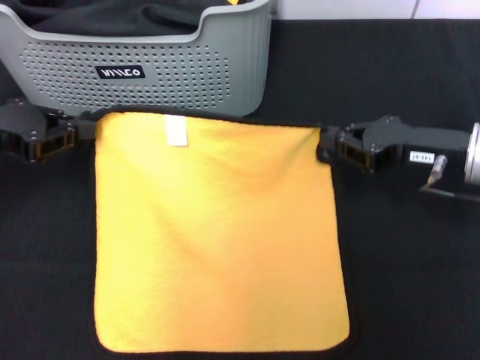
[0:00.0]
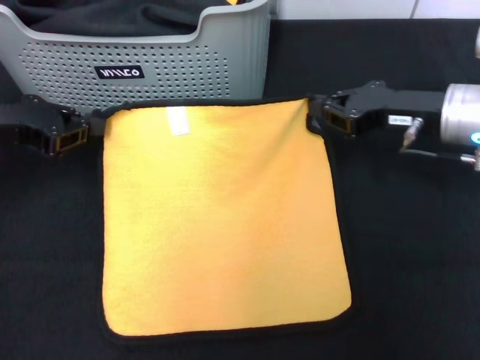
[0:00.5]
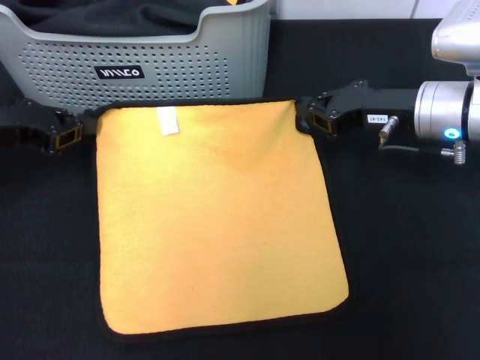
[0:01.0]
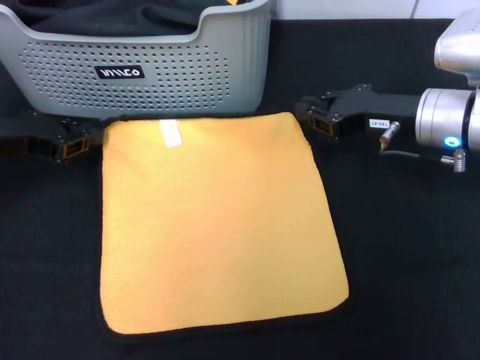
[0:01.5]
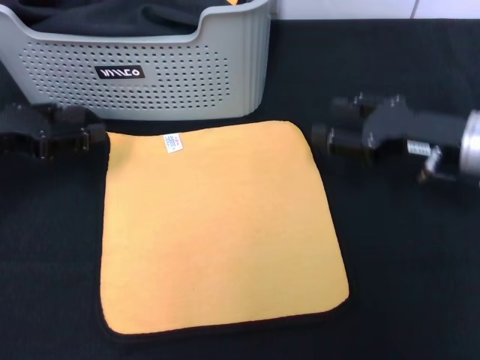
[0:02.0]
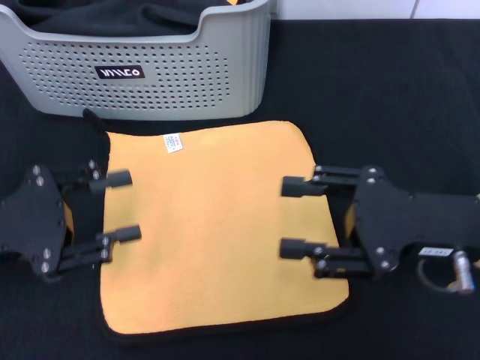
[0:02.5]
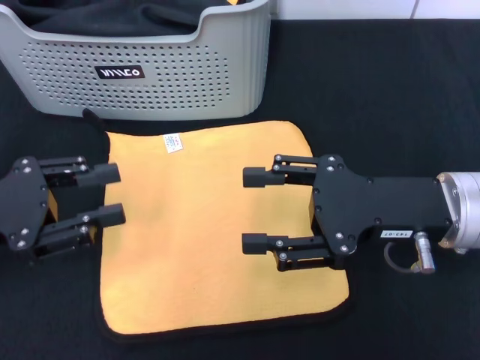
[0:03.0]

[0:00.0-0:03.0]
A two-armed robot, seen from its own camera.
Task of the whole recording: pick up the towel from the storage box and lay it flat on the black tablecloth.
0:00.0 to 0:01.5: The right gripper changes place by approximately 5 cm.
0:01.5 to 0:03.0: Both grippers move backward, approximately 10 cm. The left gripper opens up. The right gripper opens its fingers.

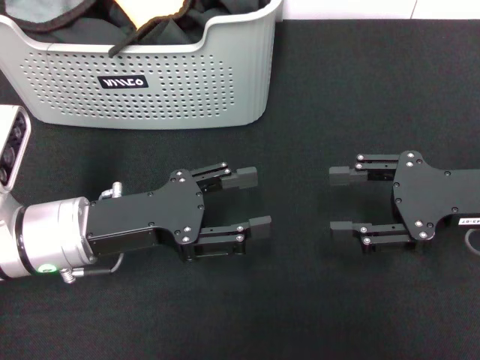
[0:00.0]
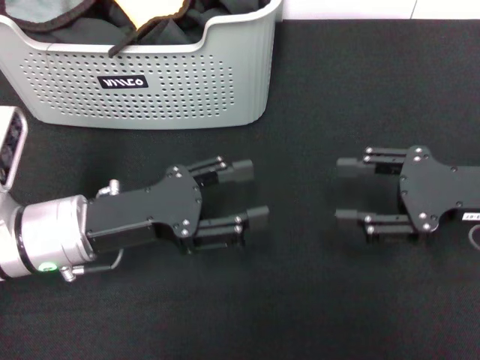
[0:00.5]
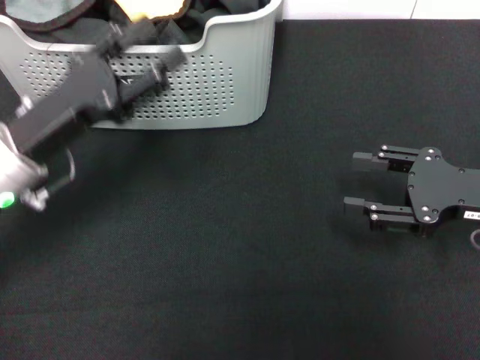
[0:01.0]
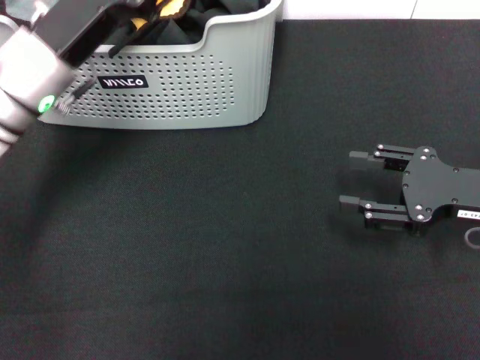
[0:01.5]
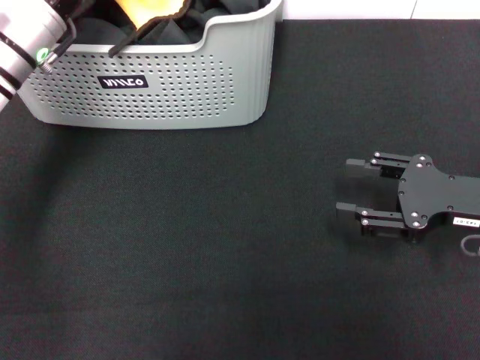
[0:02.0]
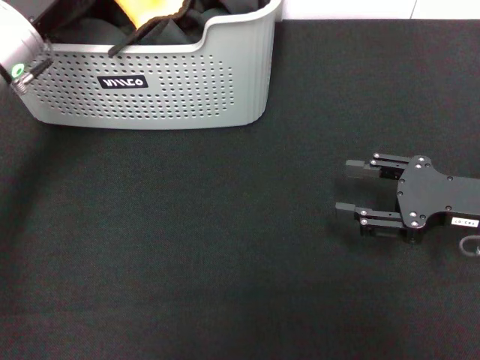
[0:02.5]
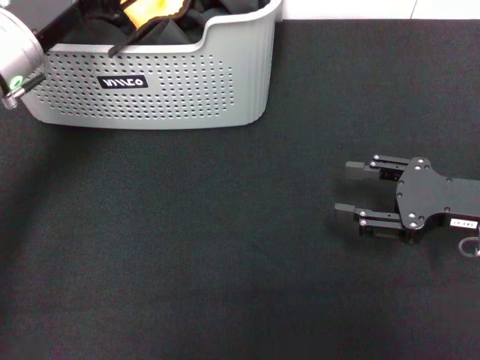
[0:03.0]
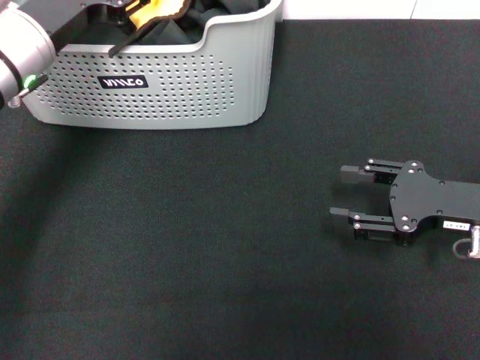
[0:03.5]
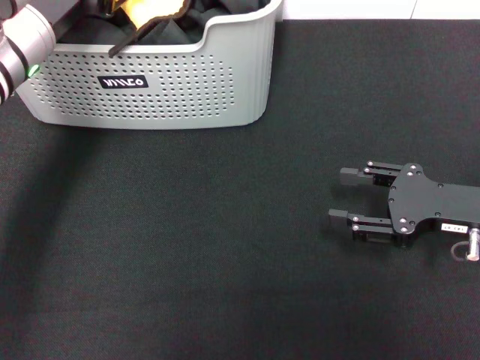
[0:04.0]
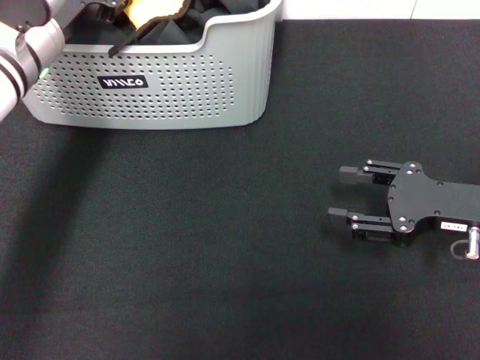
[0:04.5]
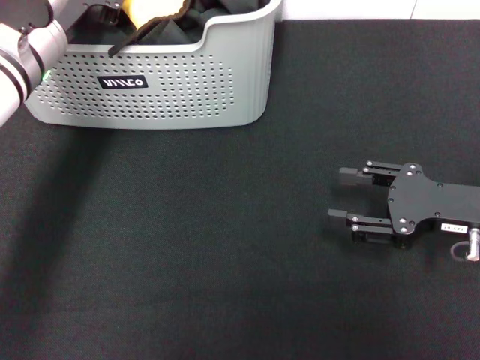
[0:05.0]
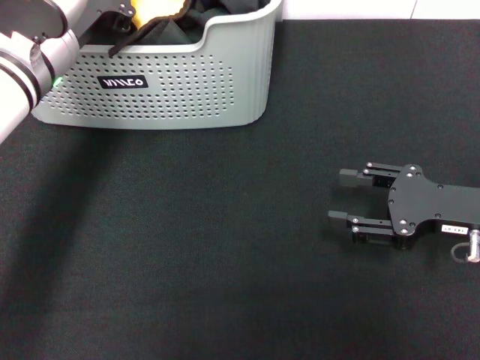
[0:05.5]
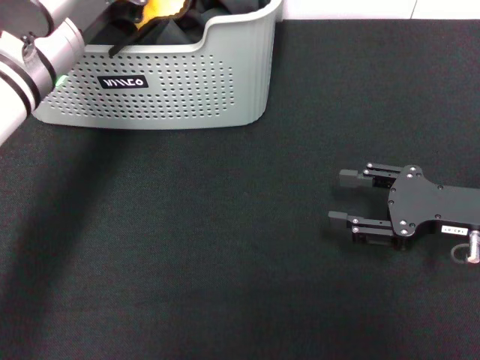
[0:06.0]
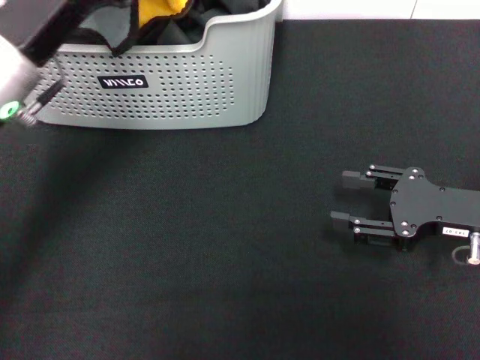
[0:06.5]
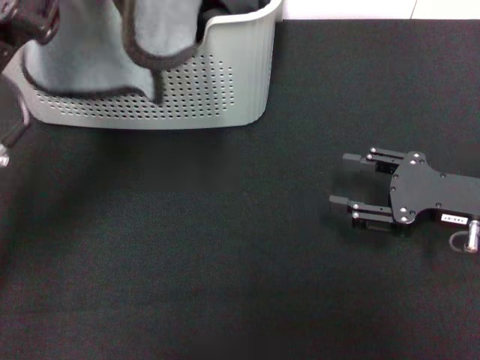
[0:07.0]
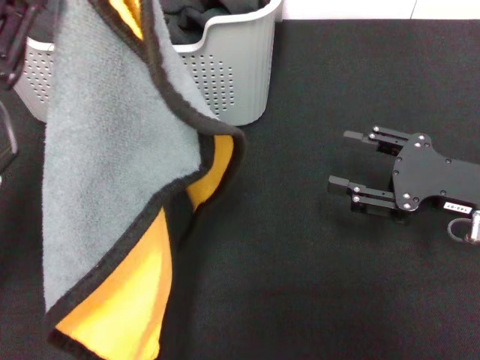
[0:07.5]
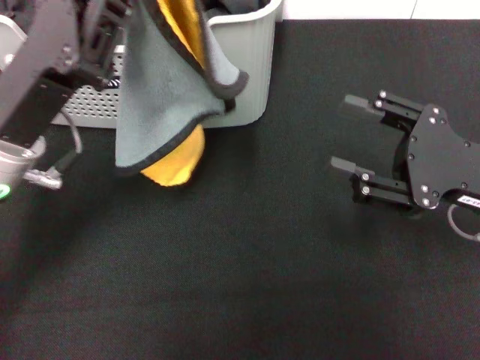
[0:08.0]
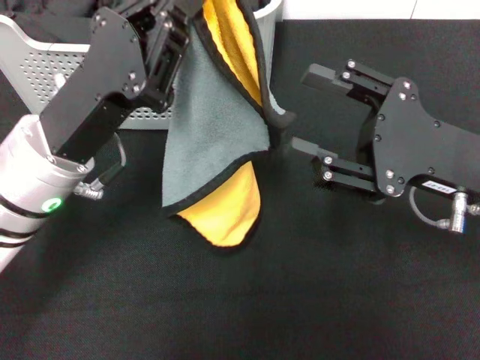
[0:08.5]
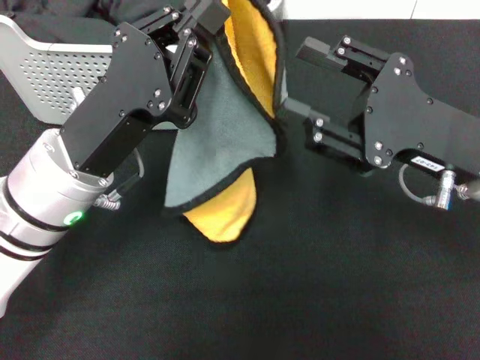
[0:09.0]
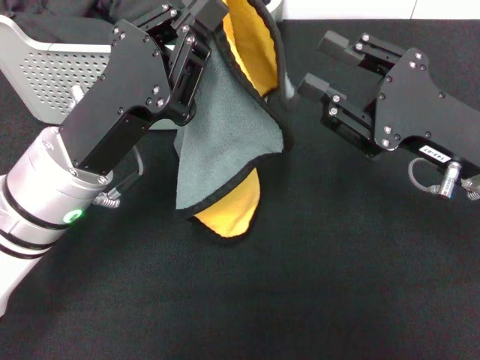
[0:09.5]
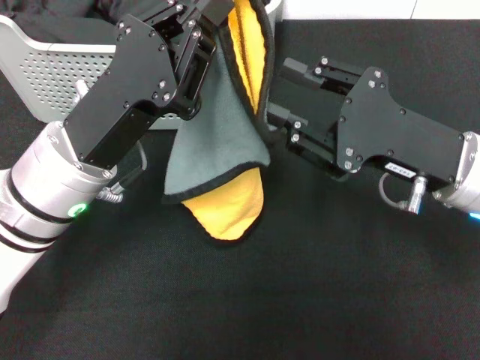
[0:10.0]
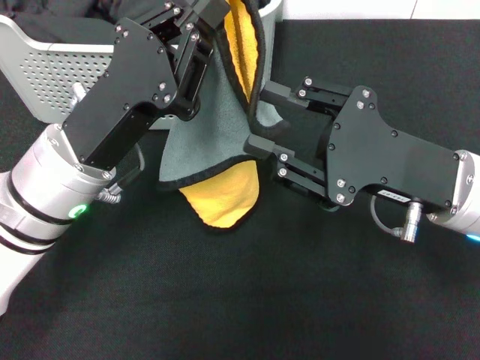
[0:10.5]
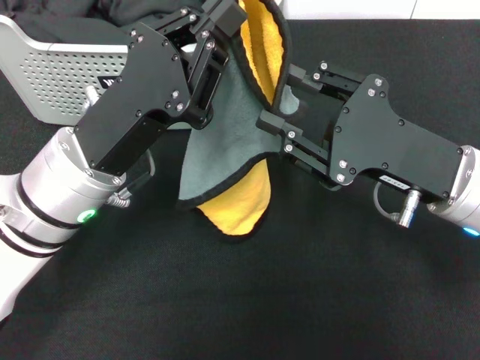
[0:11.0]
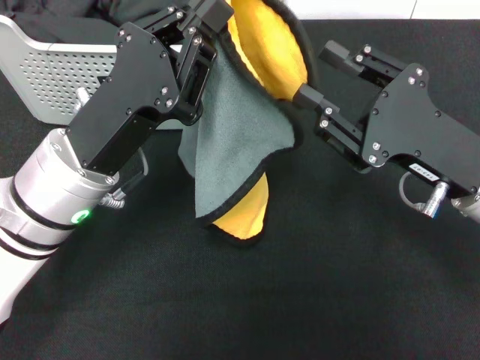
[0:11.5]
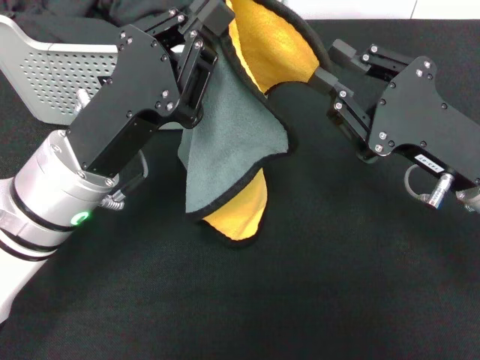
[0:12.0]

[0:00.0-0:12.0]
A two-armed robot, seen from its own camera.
Task of the whole recording: pick up the towel from the storage box and lay it flat on the black tablecloth.
Step, 0:00.0 to 0:05.5: Pick up a towel with the left gripper.
0:00.0 to 0:02.0: The left gripper travels forward and upward by some 15 cm.
0:04.0 to 0:06.0: The left gripper closes up.
0:06.0 to 0:08.0: The left gripper travels backward by some 10 cm.
0:08.0 to 0:10.0: The right gripper moves to the left, some 5 cm. Meanwhile the left gripper shifts by roughly 5 cm.

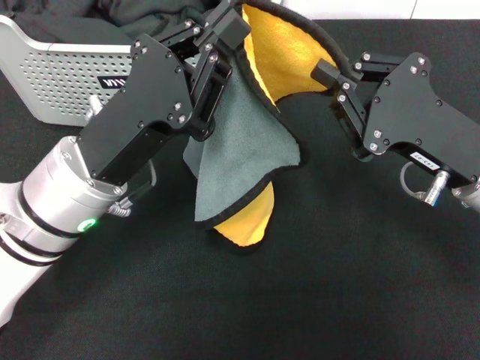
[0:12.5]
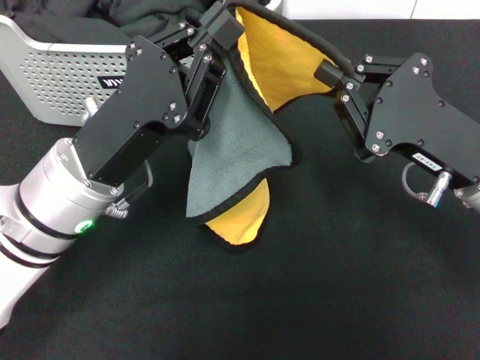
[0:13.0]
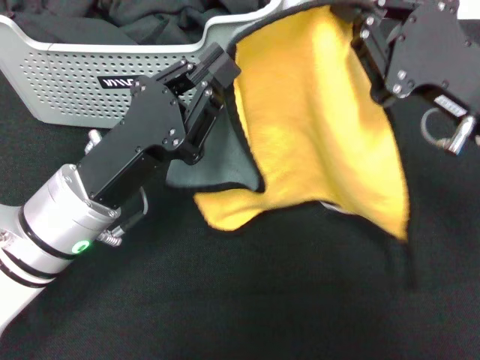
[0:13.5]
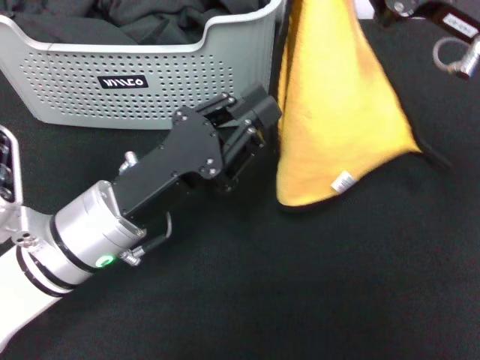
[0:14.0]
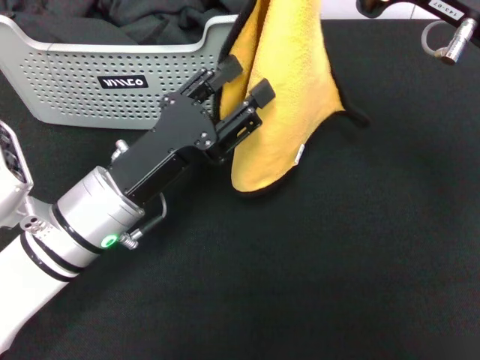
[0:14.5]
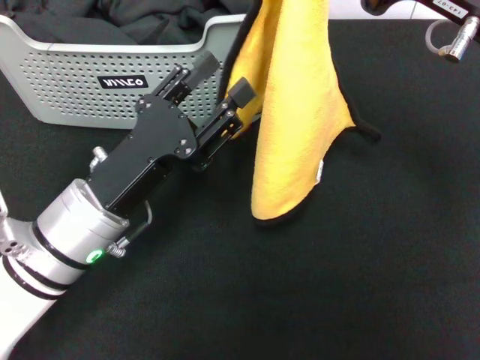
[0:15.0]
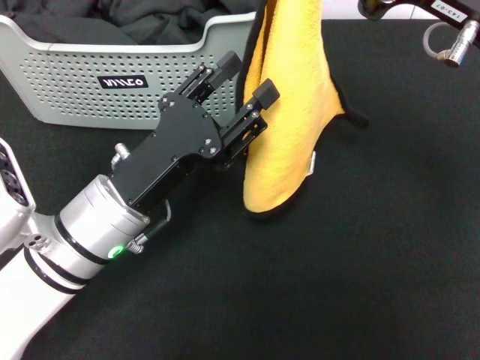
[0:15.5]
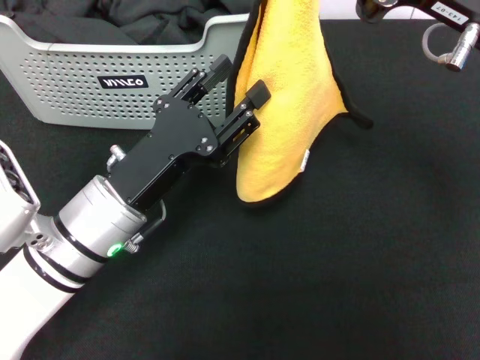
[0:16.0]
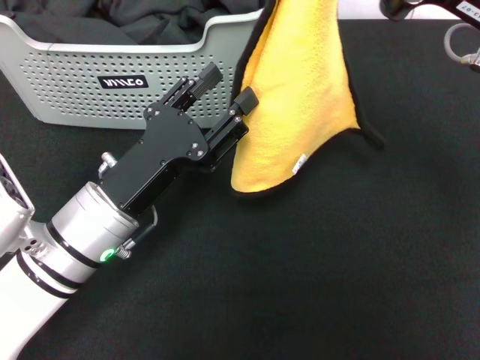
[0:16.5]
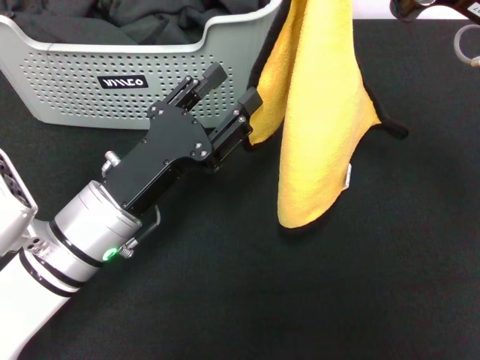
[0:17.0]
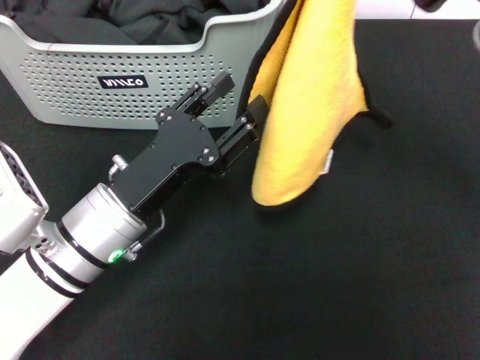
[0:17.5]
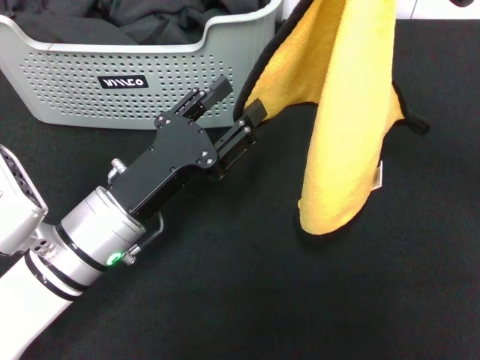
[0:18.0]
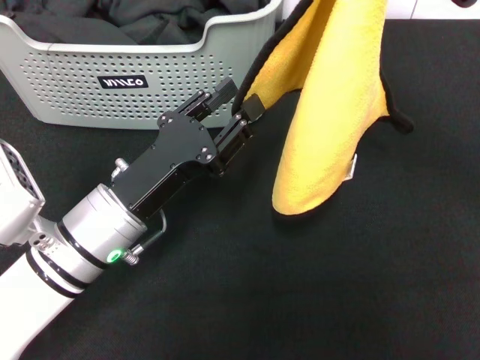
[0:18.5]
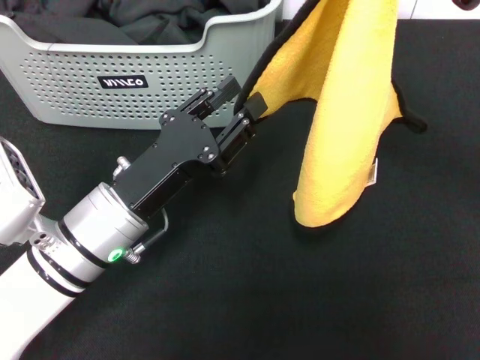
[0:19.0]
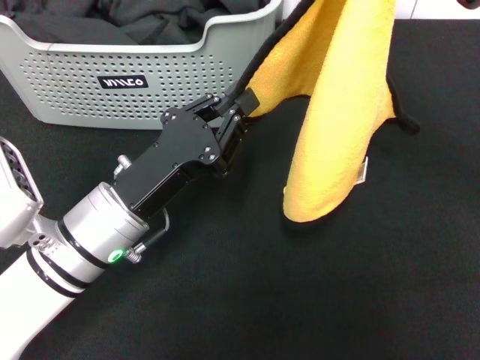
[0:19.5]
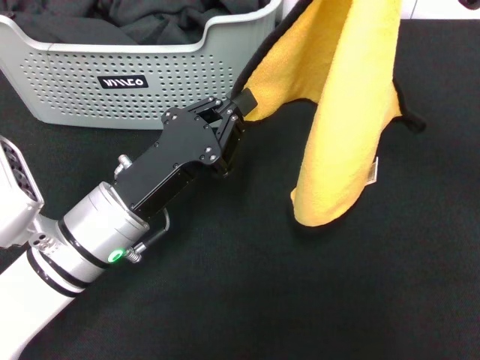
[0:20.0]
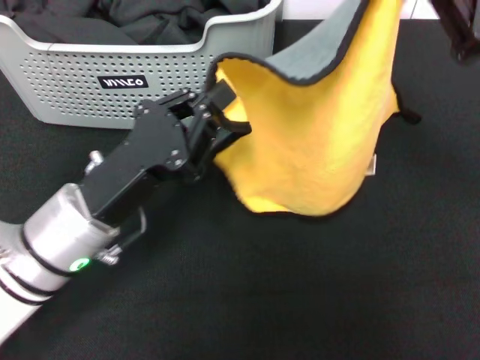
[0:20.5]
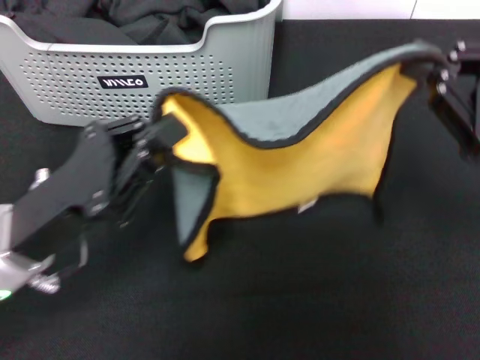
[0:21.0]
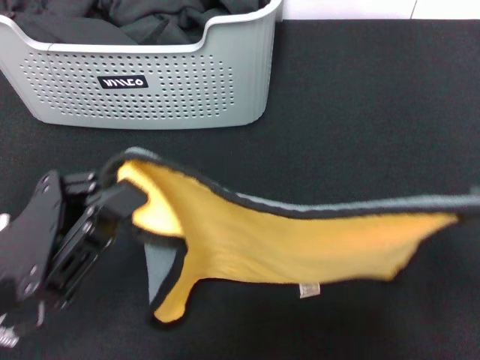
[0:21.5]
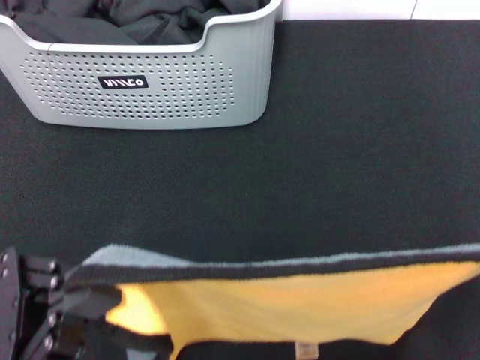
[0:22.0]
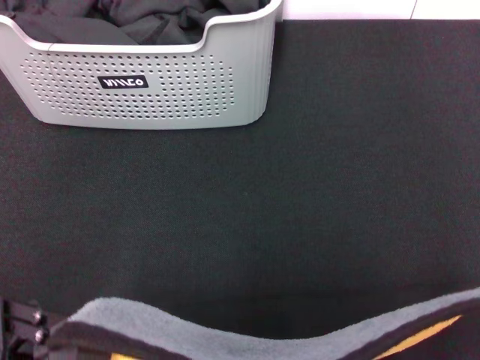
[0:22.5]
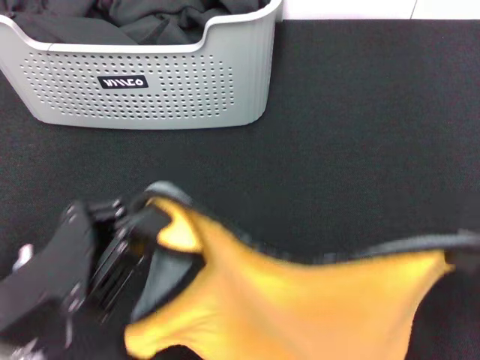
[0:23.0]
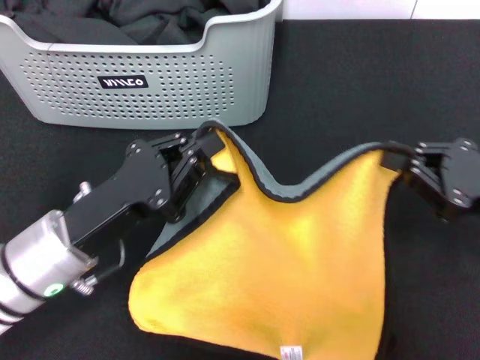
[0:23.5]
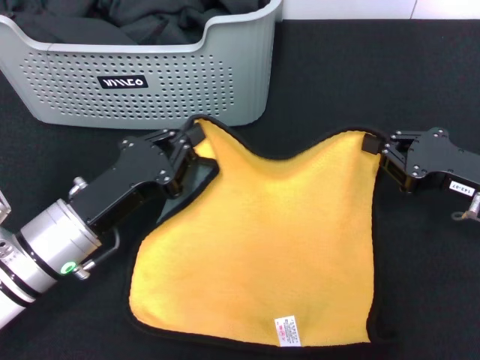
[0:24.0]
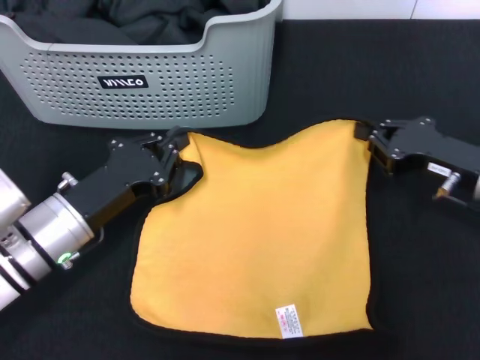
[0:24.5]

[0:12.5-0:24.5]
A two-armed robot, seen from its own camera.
Task of the whole recording: pick up the towel from the storage box and lay it flat on the black tablecloth.
0:12.5 to 0:14.5: The left gripper opens. Meanwhile the right gripper goes about 10 cm upward.
0:14.5 to 0:16.5: The grippers make only small movements.
0:18.5 to 0:20.5: The left gripper closes up.
0:20.5 to 0:22.5: The left gripper heads backward and to the left, covering roughly 15 cm. Meanwhile the right gripper shifts about 15 cm backward.
0:22.5 to 0:24.5: The two grippers go some 20 cm forward and downward.
